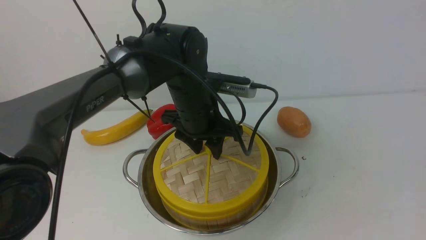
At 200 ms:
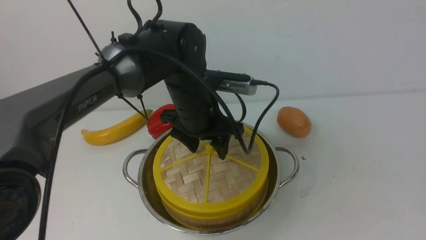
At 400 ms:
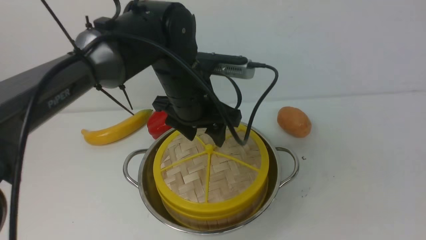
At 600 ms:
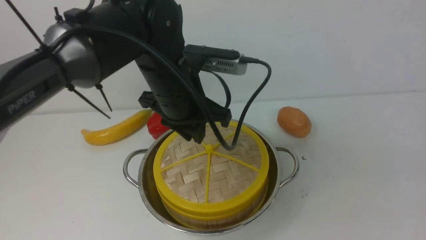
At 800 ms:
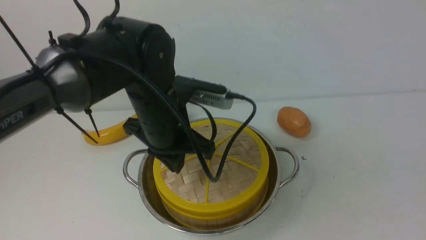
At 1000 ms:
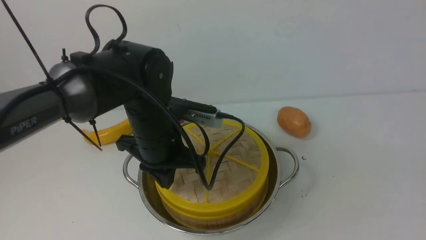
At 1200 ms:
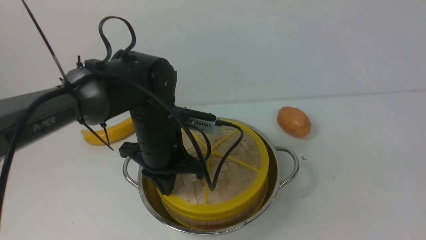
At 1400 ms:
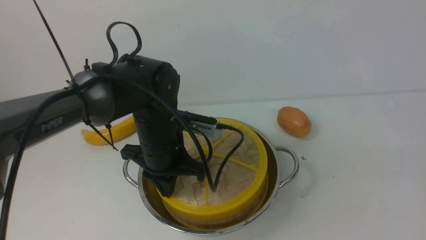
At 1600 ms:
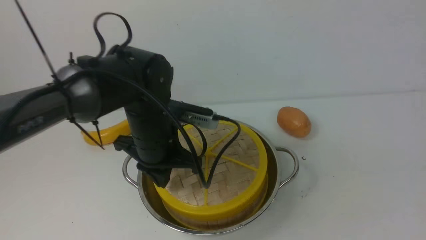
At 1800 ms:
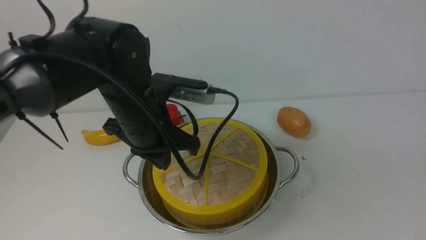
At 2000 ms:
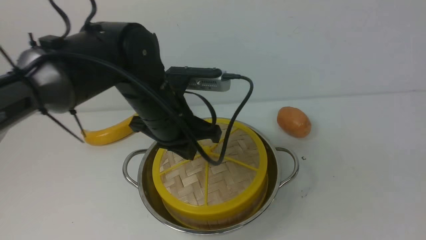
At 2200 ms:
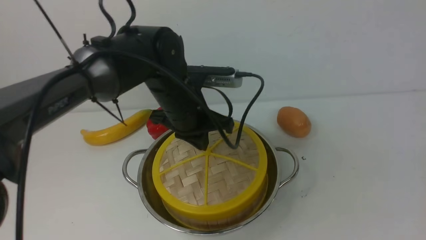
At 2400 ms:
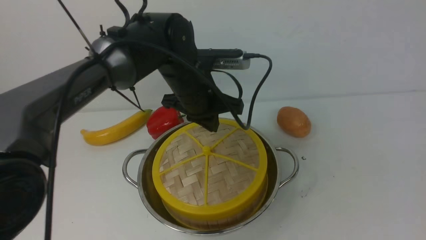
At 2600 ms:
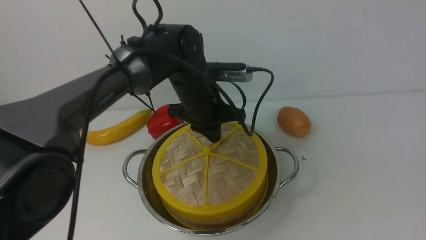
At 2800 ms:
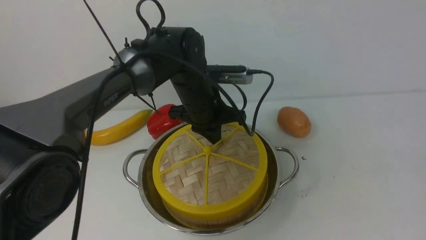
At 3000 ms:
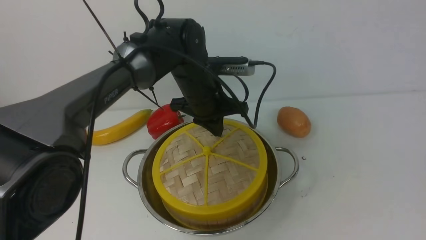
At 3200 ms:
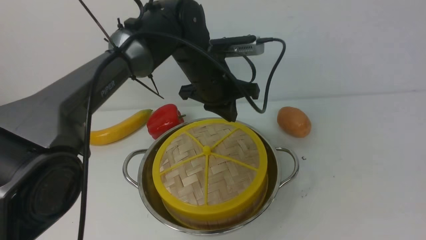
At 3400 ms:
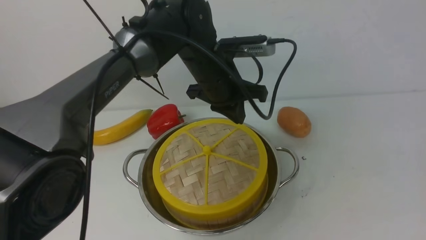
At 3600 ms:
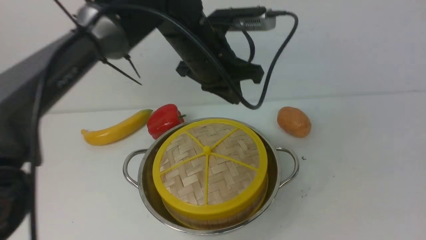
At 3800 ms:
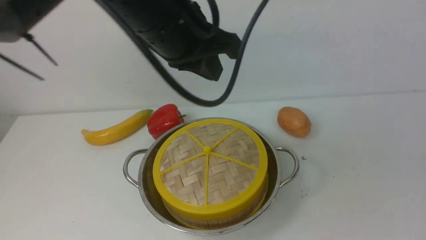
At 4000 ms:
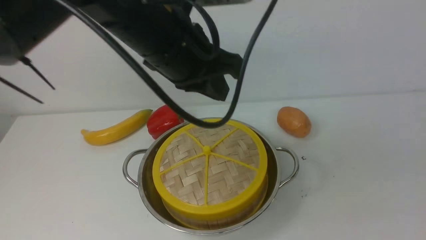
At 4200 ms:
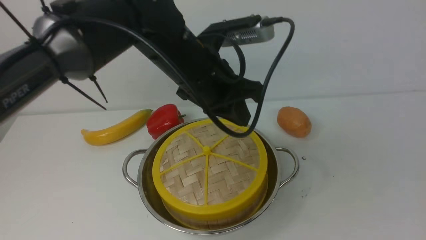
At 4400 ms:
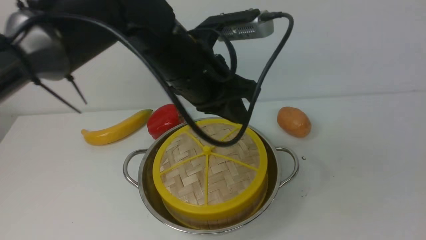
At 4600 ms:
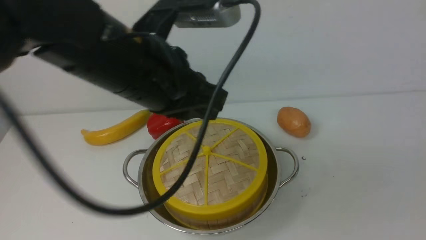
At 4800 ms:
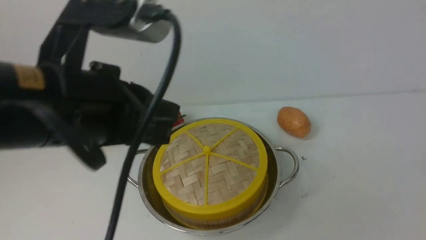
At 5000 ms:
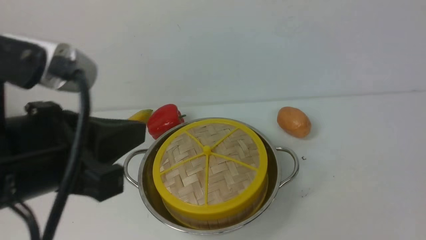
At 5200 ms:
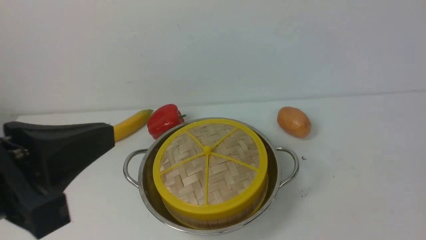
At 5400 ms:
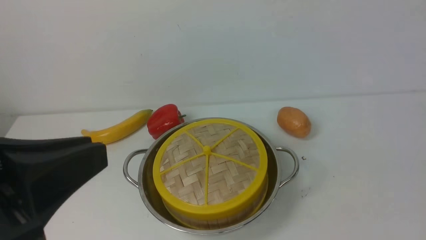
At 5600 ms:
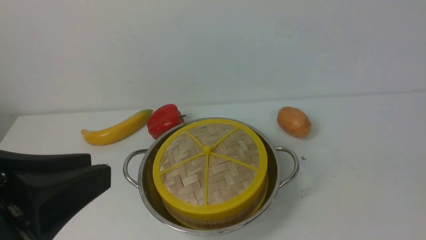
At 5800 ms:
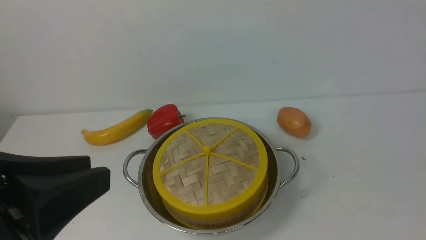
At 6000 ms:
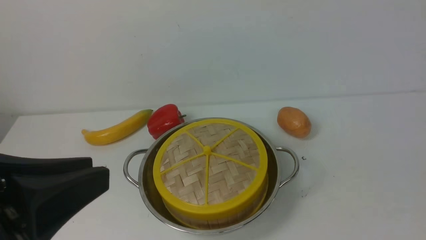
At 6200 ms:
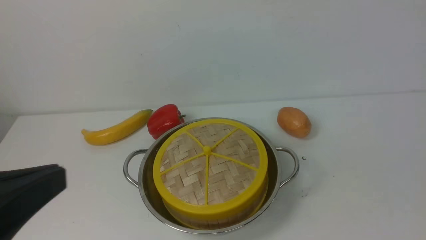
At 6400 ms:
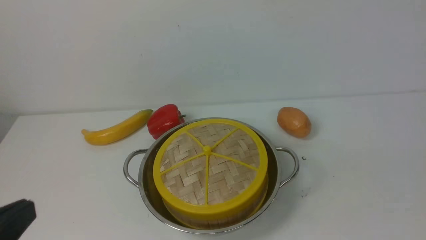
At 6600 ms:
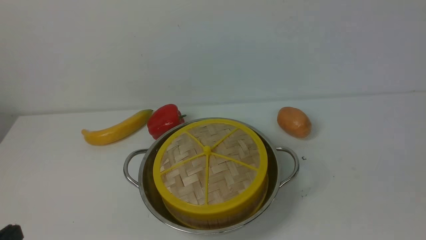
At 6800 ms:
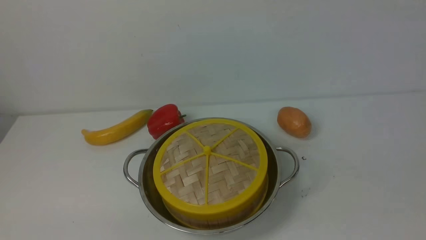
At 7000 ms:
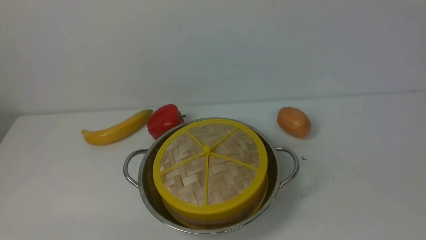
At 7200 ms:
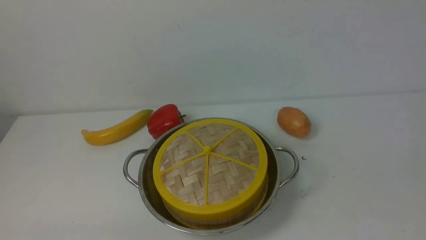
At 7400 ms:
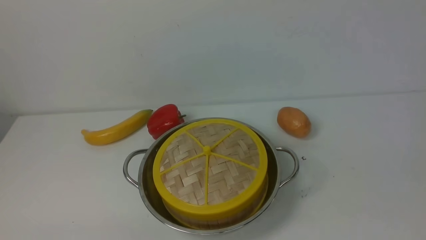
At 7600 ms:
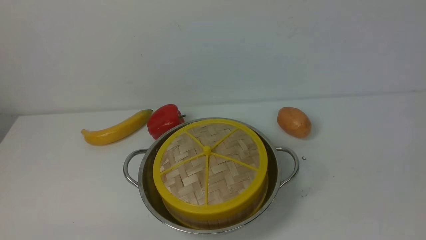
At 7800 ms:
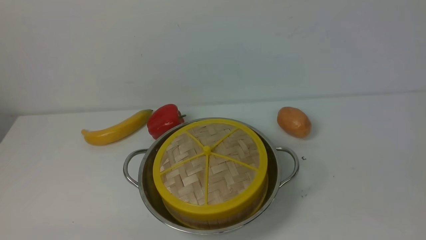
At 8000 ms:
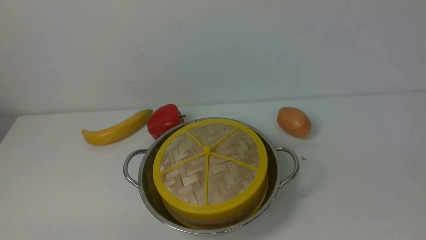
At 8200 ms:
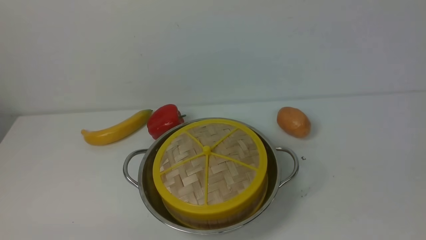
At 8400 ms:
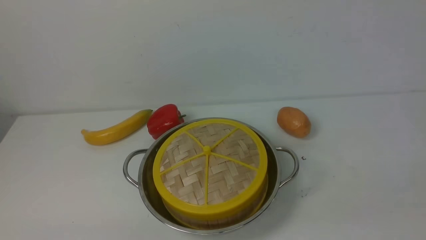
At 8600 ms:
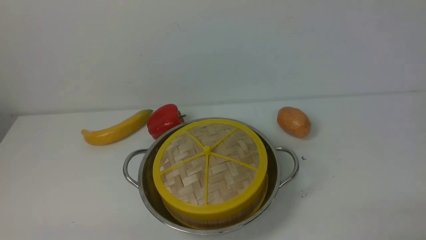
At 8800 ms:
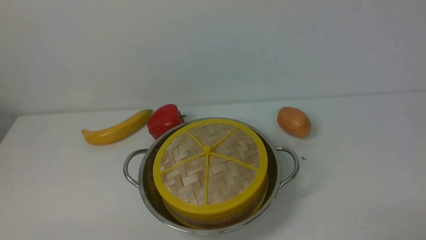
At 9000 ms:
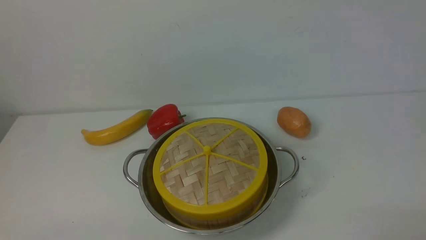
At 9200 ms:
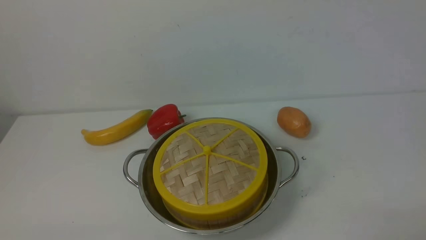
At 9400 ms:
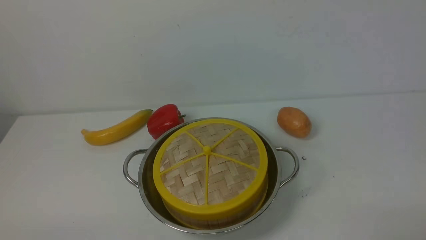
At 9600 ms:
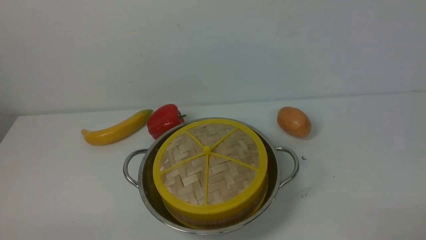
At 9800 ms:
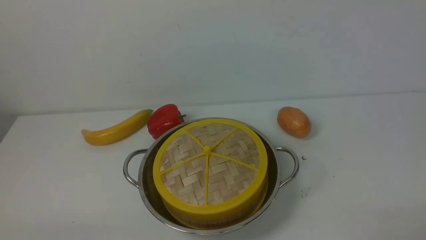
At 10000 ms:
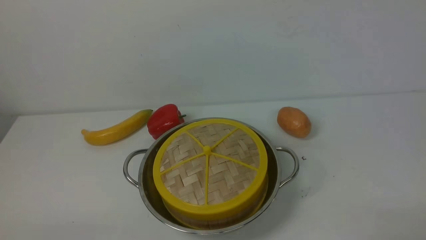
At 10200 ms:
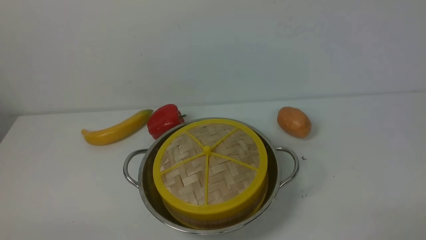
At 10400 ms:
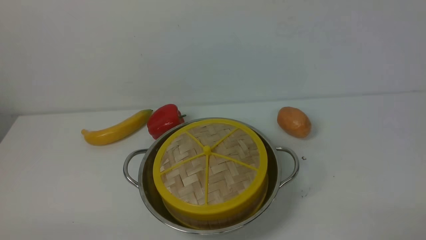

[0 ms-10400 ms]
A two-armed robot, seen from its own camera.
Task of the whole recording: place the steamer in the pot on the white table, and put the lid on the steamer.
Step, 0 ms to 4000 ms: use the left arm to place the steamer lid on the steamer.
0 ms to 1400 ms: The left gripper travels to the left by approximately 5 cm, and closes its fingers.
1400 ms to 3000 ms: The left gripper heads forward and to the right, covering roughly 10 cm.
3000 ms to 4400 ms: The left gripper is displaced backward and upward by roughly 15 cm.
4400 ms to 6000 ms: The left gripper heads backward and to the left, covering about 25 cm.
6000 ms to 7400 ms: The left gripper is displaced downward by approximately 20 cm.
9000 ms to 10400 ms: Both grippers stay put.

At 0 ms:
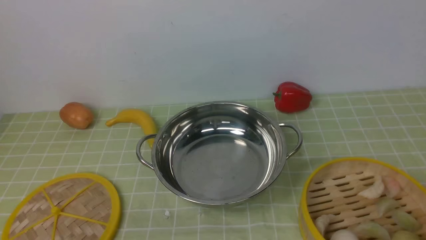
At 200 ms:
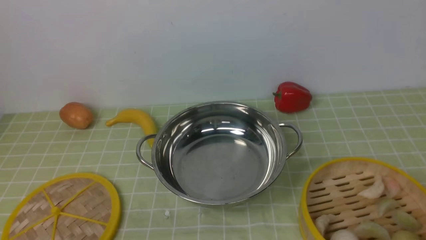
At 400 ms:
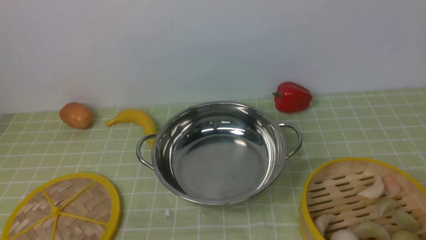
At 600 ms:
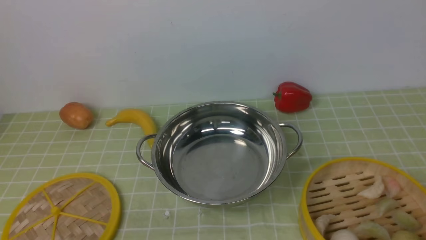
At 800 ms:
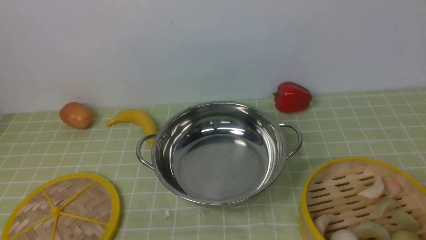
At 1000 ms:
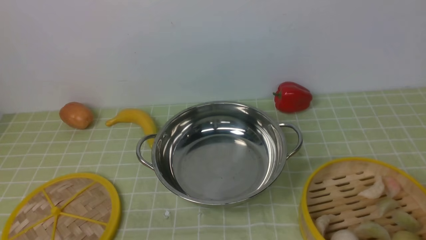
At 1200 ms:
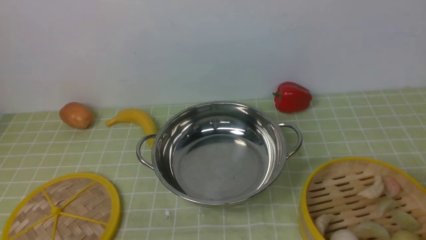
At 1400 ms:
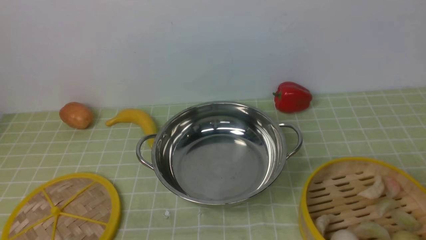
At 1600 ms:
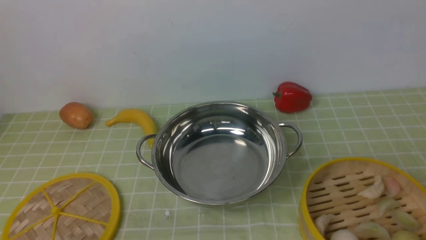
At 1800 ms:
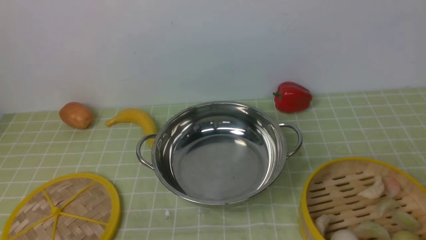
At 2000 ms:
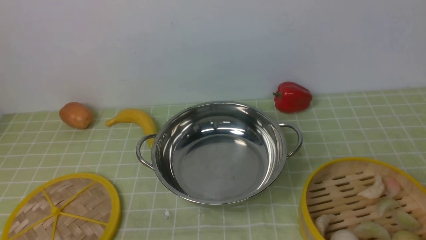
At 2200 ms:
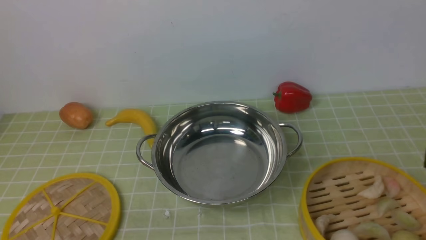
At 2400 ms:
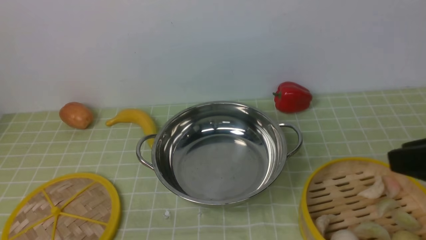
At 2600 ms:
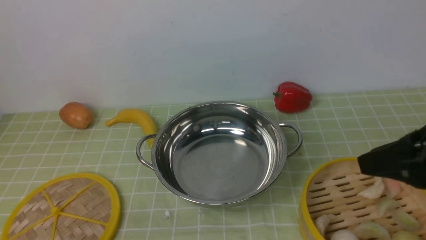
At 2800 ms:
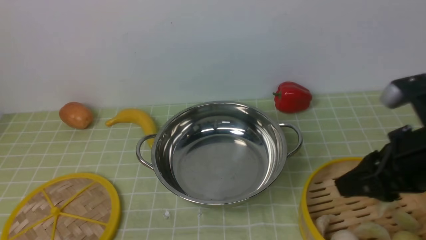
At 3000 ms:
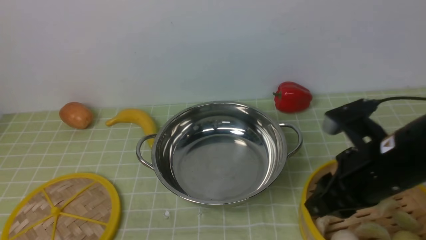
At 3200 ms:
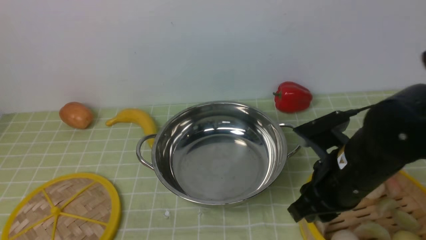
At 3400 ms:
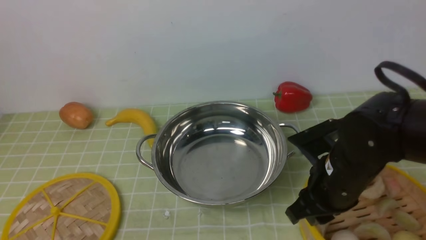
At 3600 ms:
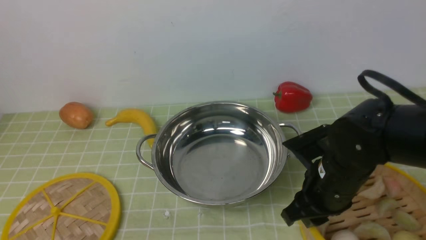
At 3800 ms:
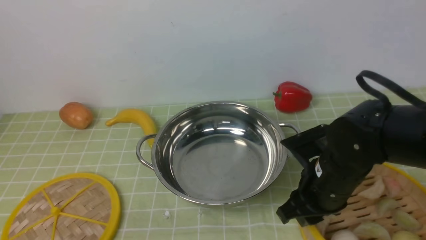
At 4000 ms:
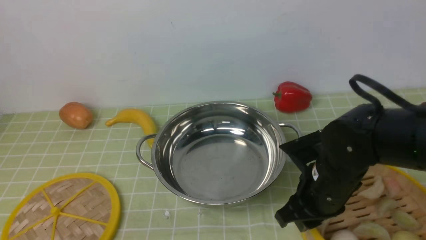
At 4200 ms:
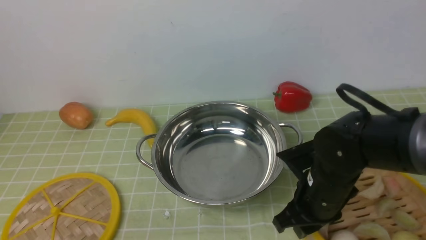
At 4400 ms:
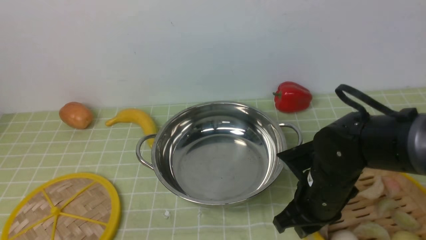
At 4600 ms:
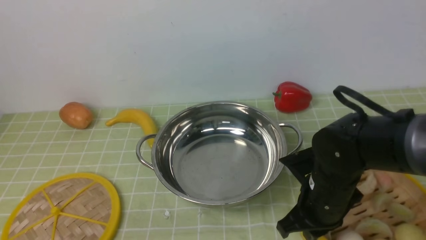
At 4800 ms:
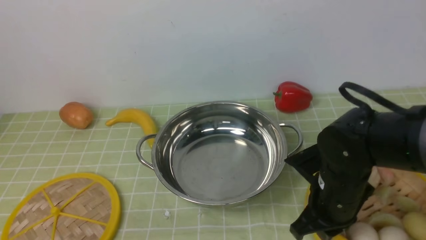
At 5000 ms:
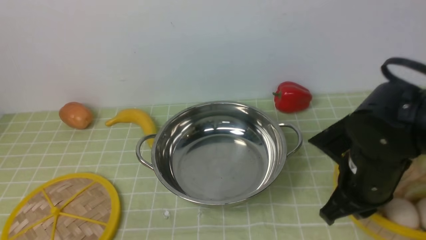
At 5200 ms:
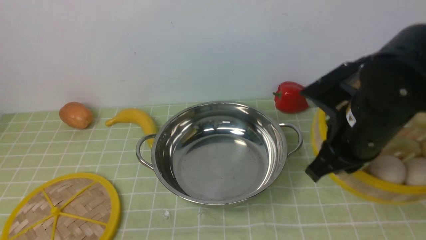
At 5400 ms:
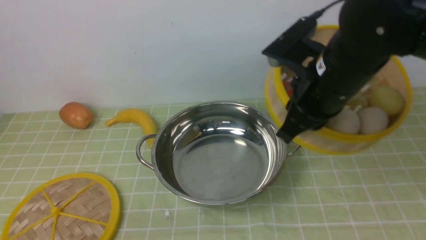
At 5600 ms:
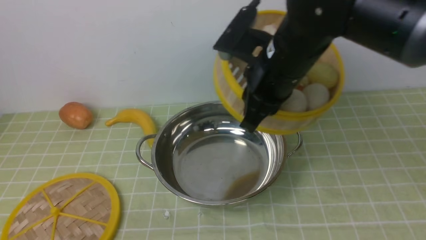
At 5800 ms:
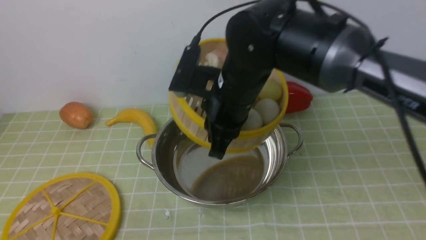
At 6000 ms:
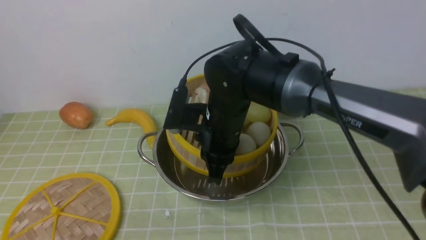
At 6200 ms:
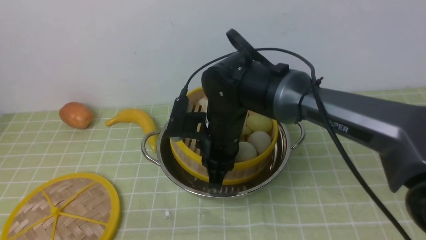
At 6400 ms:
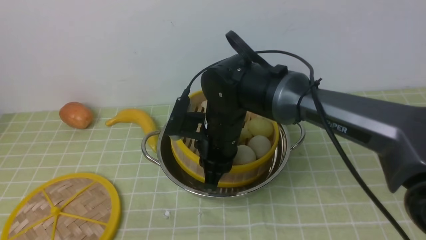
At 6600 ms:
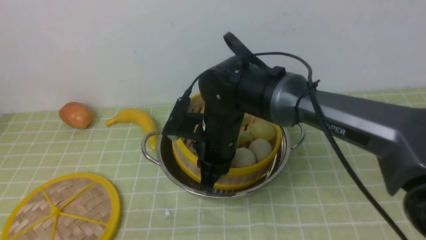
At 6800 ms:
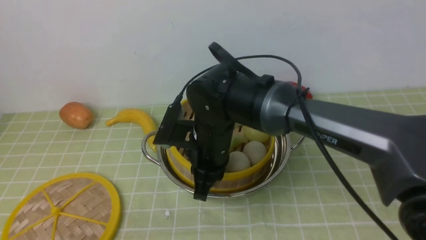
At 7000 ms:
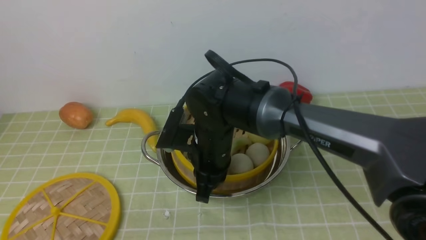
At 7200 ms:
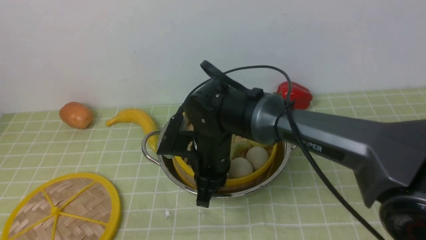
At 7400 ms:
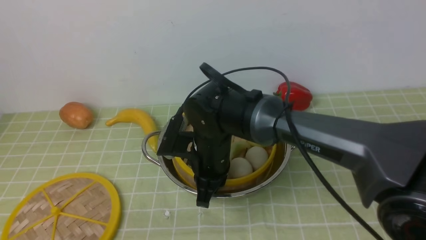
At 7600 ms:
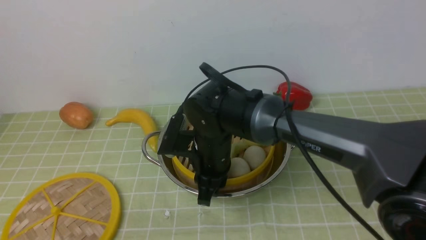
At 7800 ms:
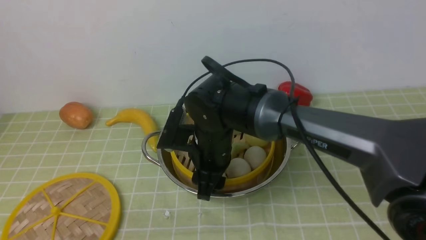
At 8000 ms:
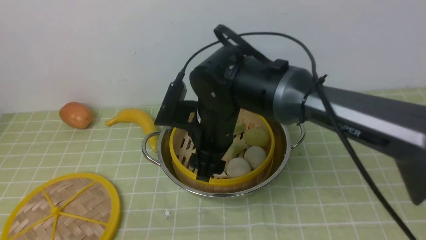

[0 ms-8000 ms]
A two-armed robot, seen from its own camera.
Task of the whole recording: place the steamer in the pot on the green tablecloth, and put the lid on the steamer.
Step, 0 ms to 5400 ms: use the right arm to lift the steamer closest to it.
1600 ms to 3200 ms: The right gripper travels forward, to the left and downward by approximately 25 cm.
3200 ms to 4800 ms: The right gripper closes.
4800 ms to 6400 ms: The right gripper heads to the left and forward, covering approximately 20 cm.
6400 ms to 8000 ms: The right gripper opens up.
